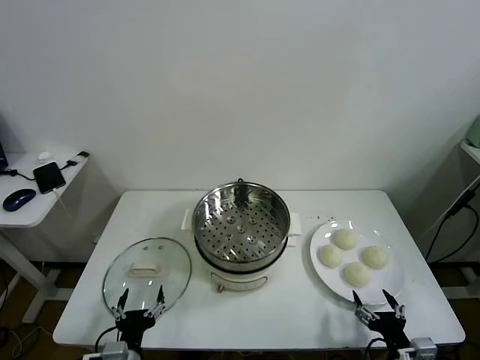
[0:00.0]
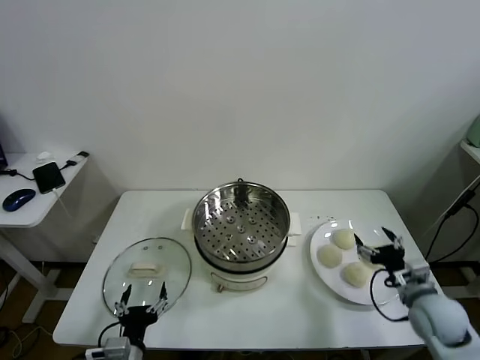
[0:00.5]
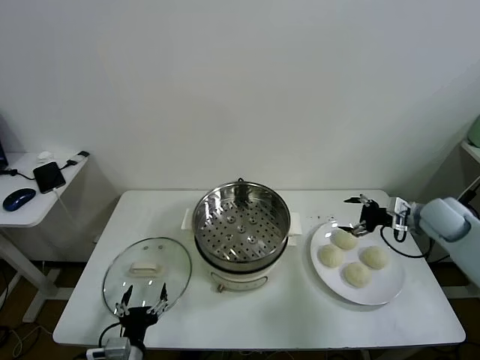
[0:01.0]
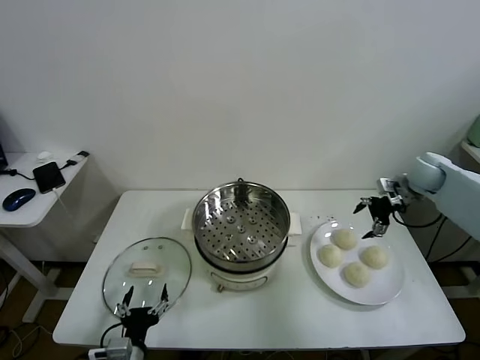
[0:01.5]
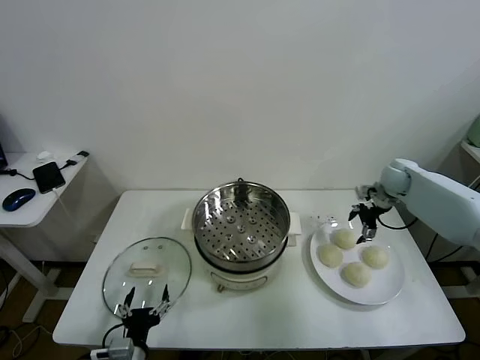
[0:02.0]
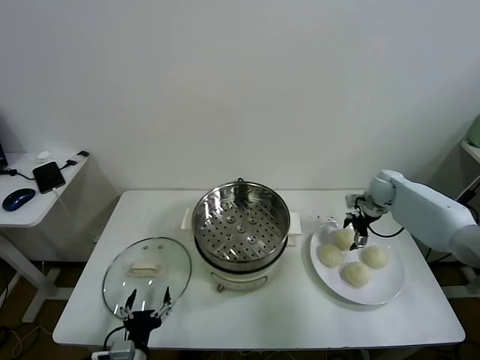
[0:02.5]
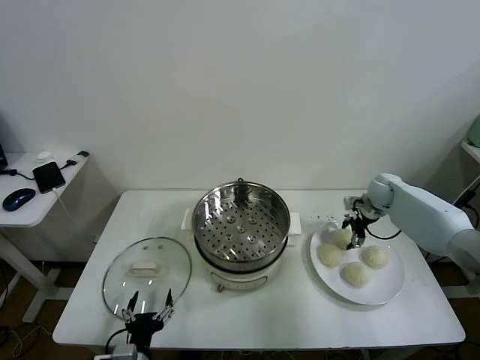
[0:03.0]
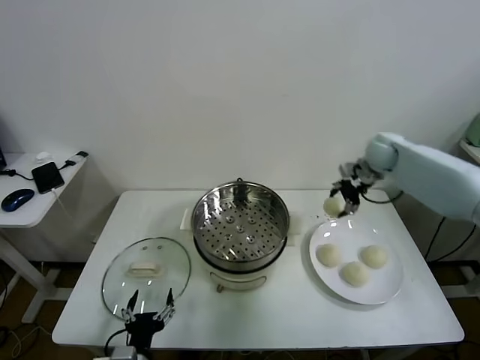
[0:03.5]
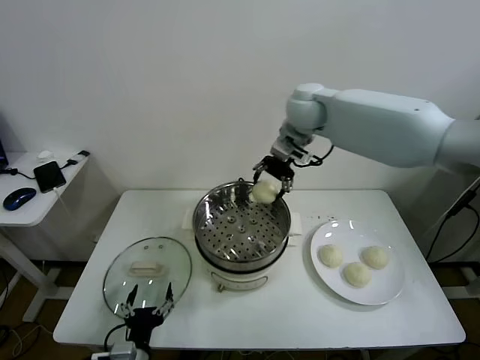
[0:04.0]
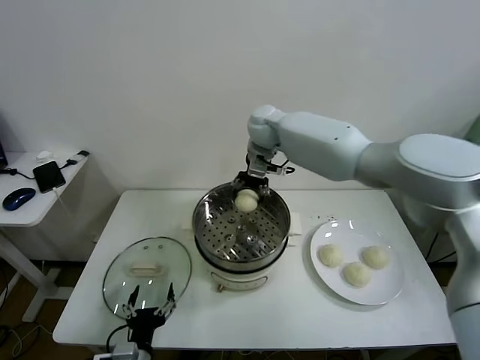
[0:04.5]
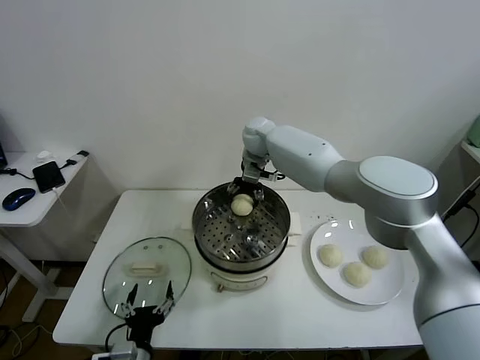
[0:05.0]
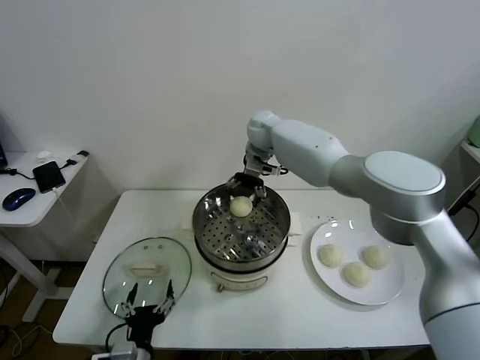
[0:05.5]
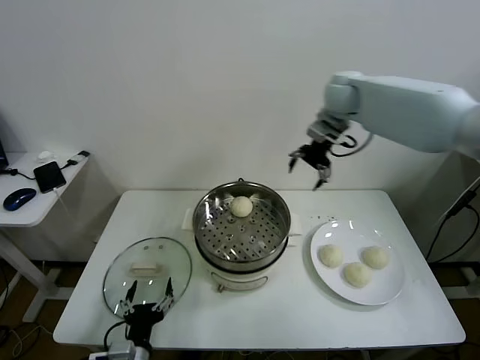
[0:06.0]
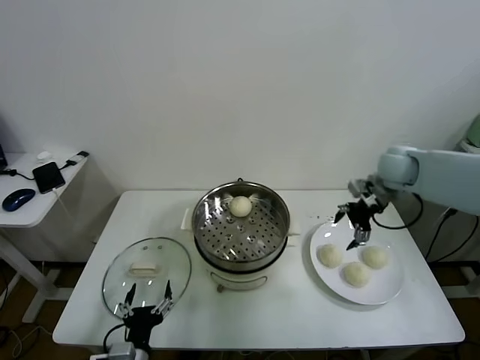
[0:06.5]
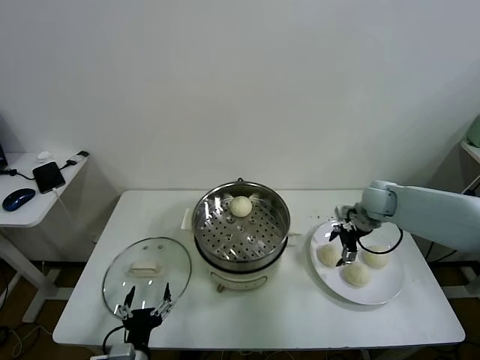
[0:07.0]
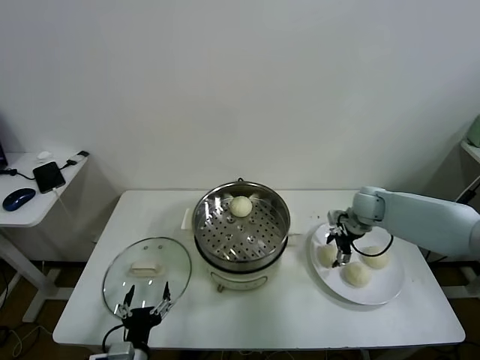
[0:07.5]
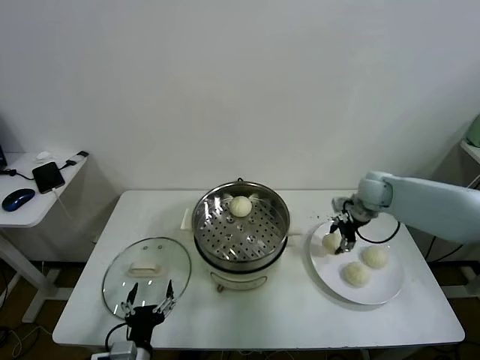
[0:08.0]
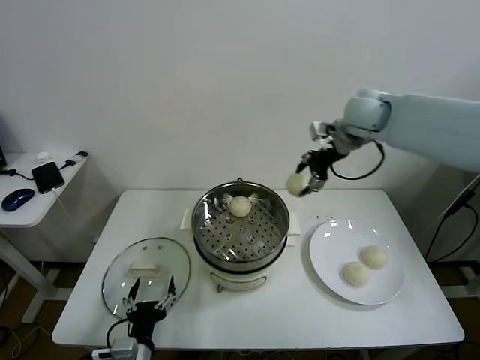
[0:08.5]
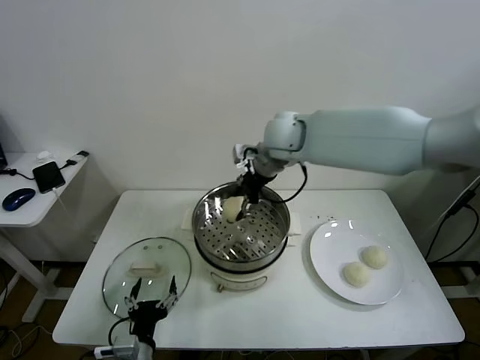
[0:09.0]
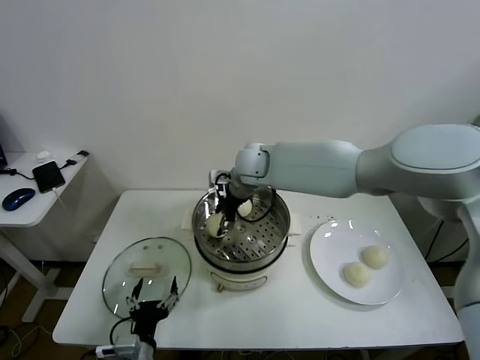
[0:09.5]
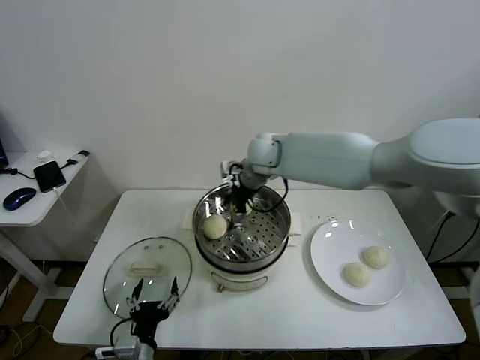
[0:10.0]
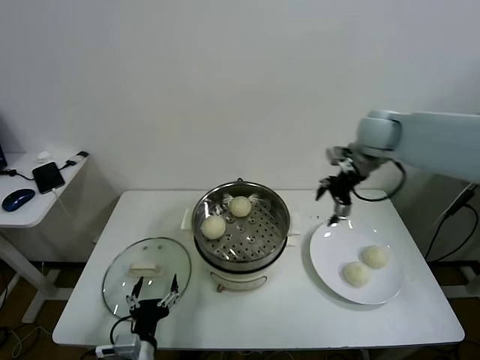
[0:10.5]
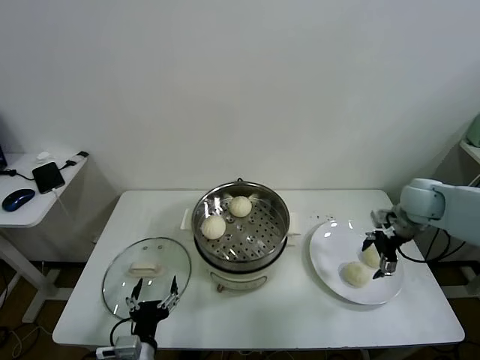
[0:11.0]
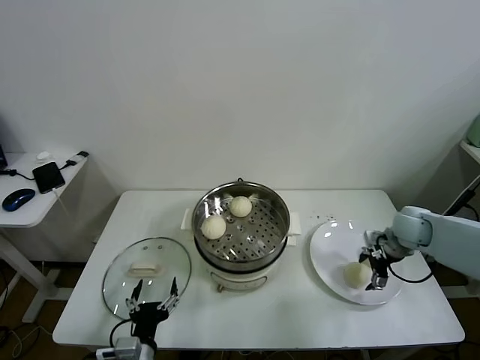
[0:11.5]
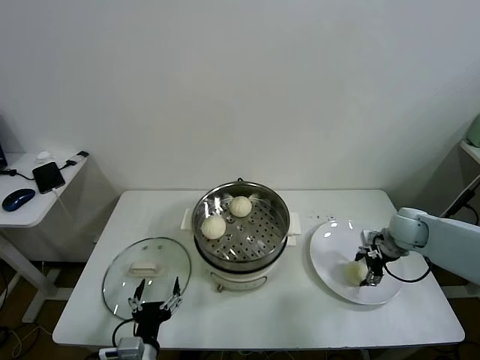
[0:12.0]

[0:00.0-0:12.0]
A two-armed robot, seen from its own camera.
Task of the whole recording: take steamed baozi put them in steamer.
Step, 0:00.0 to 0:02.5: Grasp the baozi in the plate with right gripper.
Step, 0:03.0 to 0:05.0: Place the baozi on the steamer with right gripper.
Step, 0:05.5 to 0:07.5: Grasp the baozi in the plate with right gripper.
Step, 0:08.0 to 0:09.5: Place the baozi on the steamer with right gripper.
Step, 0:10.0 to 0:12.0: Grasp the baozi in the plate with right gripper.
0:02.0 to 0:04.0: The right gripper heads to the left and upward, covering about 35 cm, and closes.
0:04.0 to 0:06.0: The right gripper heads to the right, covering about 15 cm, and opens up.
0:06.0 to 0:08.0: The right gripper heads downward, covering roughly 20 cm, and closes.
0:08.0 to 0:10.0: The right gripper moves to the left, some 25 cm, and opens its fingers.
0:10.0 to 0:12.0: The right gripper is displaced to the right and downward by about 40 cm, and closes its fingers.

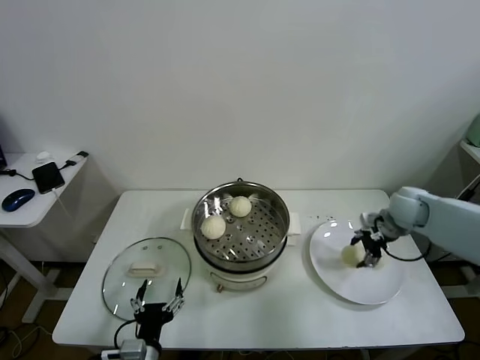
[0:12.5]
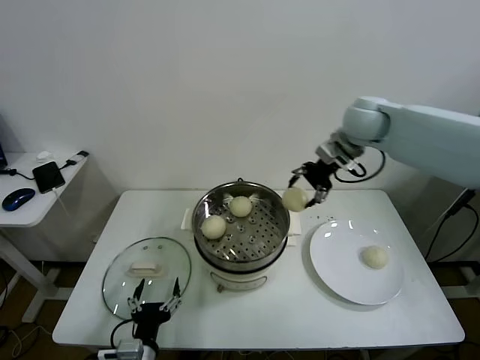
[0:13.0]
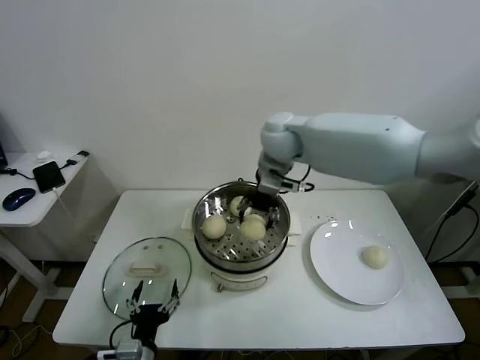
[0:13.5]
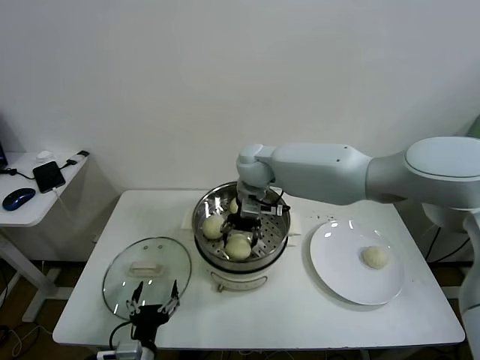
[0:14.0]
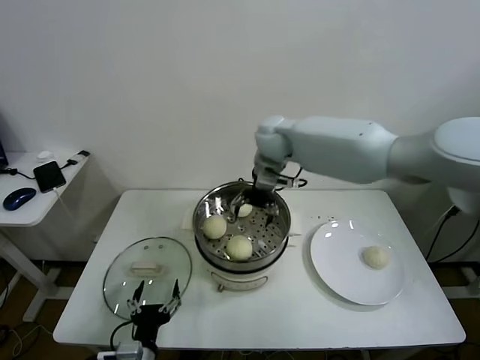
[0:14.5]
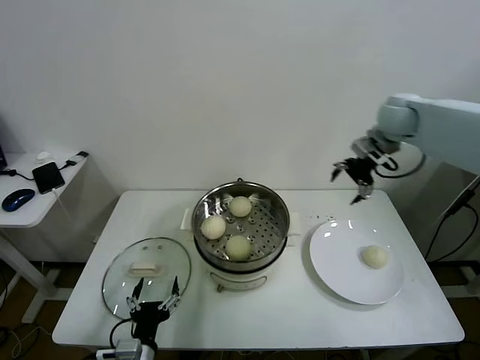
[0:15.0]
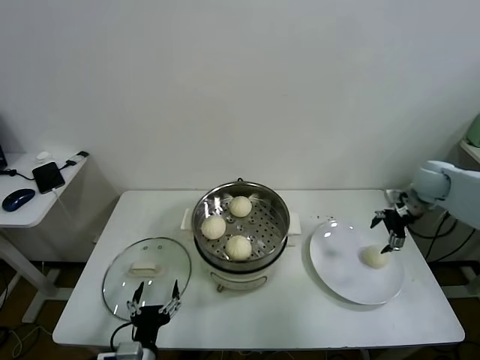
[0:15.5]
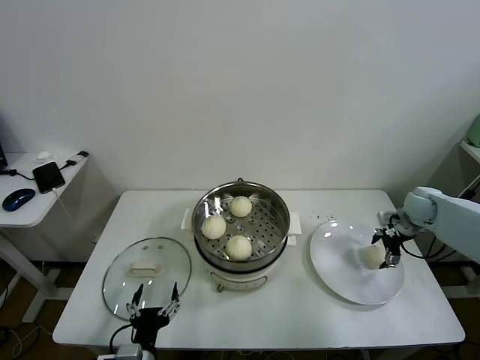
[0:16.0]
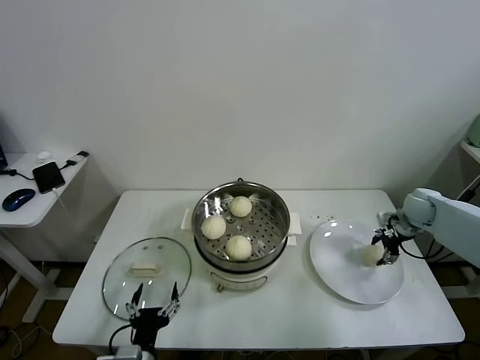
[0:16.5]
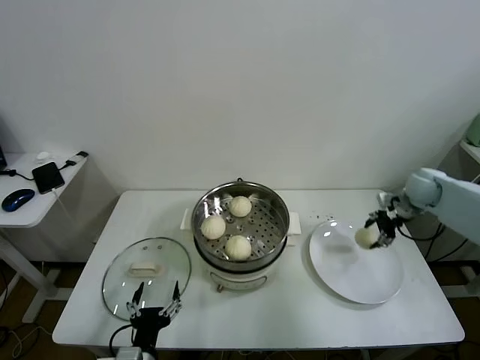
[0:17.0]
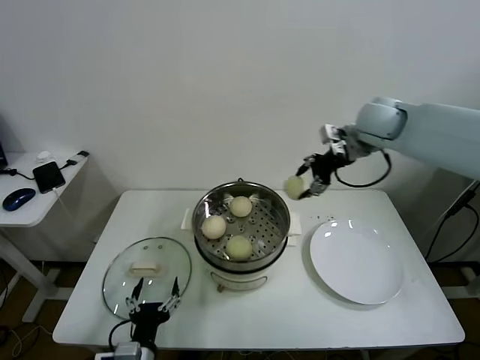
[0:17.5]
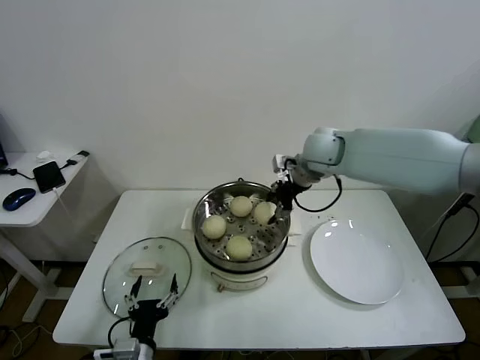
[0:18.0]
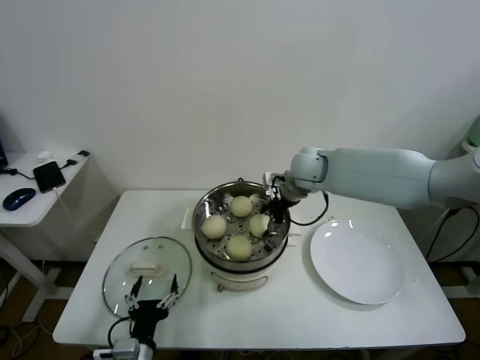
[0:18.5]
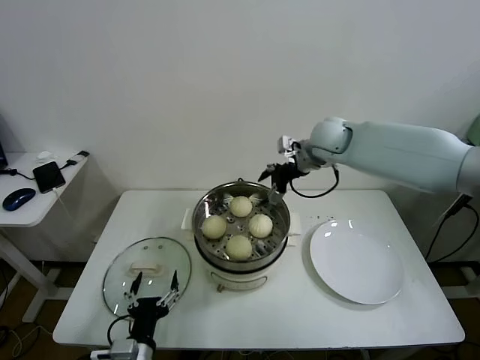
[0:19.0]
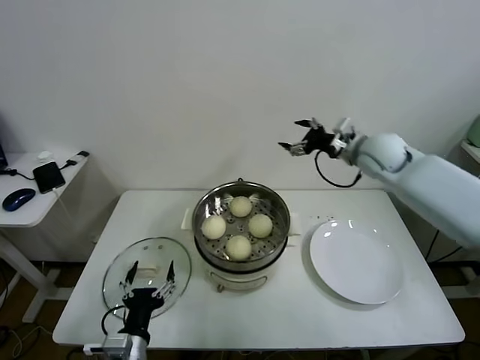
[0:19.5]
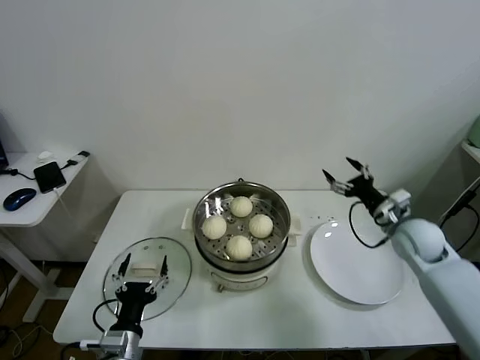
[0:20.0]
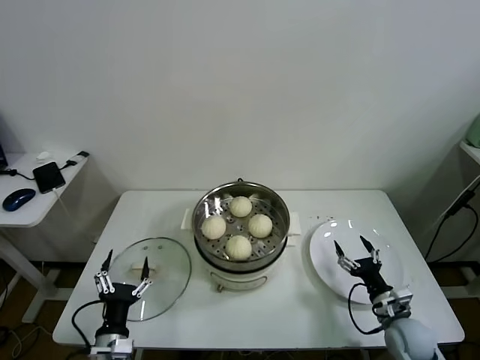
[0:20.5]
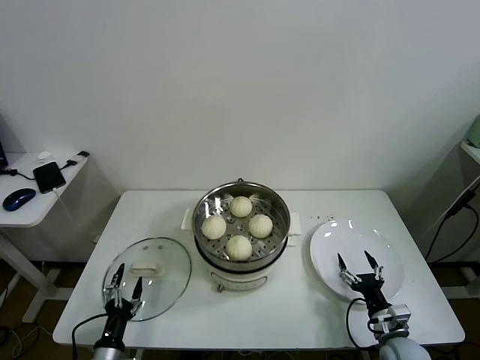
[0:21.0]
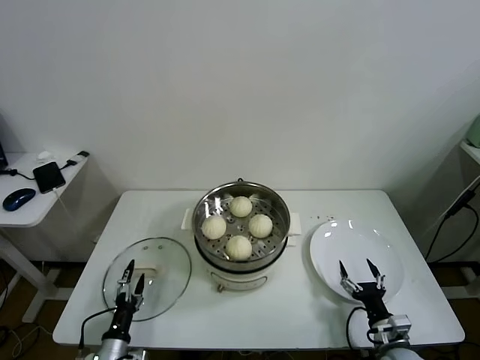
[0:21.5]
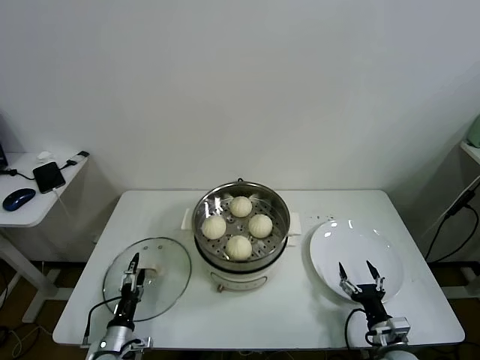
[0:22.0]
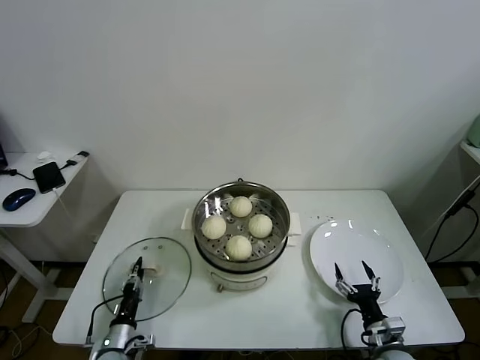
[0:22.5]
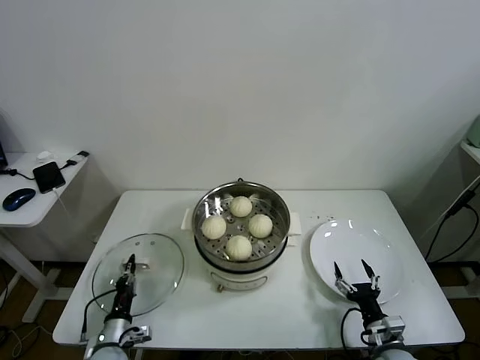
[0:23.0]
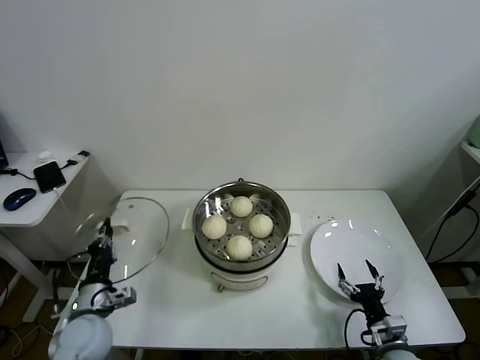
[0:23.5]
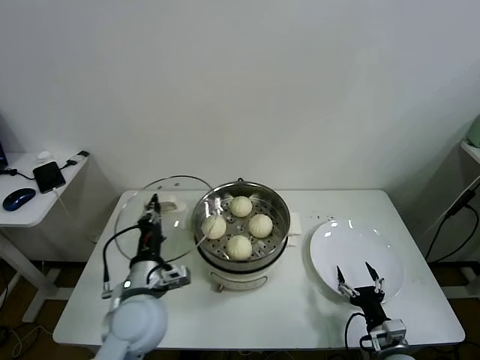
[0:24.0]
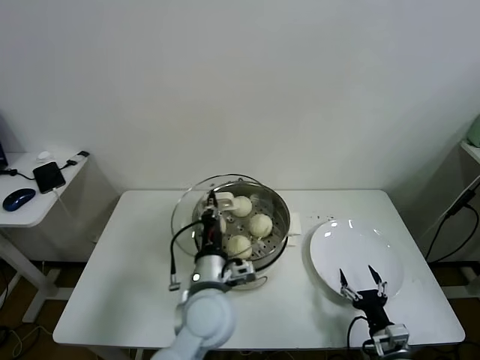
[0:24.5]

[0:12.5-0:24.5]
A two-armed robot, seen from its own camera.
Task of the whole recording: take steamed baozi put them in steamer.
Step, 0:12.5 to 0:14.0: Place the baozi on the steamer with right gripper.
Step, 0:14.5 to 0:16.0: Grasp the baozi in the plate with right gripper.
Step, 0:17.0 to 0:18.5: Place the baozi on the steamer with right gripper.
Step, 0:19.0 to 0:22.5: Grasp the pot lid with left gripper.
0:12.5 to 0:14.5: The right gripper is displaced to the left and upward by about 35 cm, and opens up.
0:14.5 to 0:16.5: The right gripper shifts roughly 40 cm to the right and downward, and closes its fingers.
0:16.5 to 0:18.5: The right gripper travels to the left by approximately 30 cm, and opens.
0:18.5 to 0:20.5: The left gripper moves to the left, some 5 cm. Meanwhile the right gripper heads downward, backward and to the right, covering about 50 cm, and opens its fingers.
0:20.5 to 0:22.5: The left gripper moves downward and to the left, about 15 cm, and closes its fingers, while the right gripper heads backward, covering approximately 5 cm.
0:22.5 to 0:24.5: The left gripper moves upward and to the right, some 35 cm, and closes its fingers.

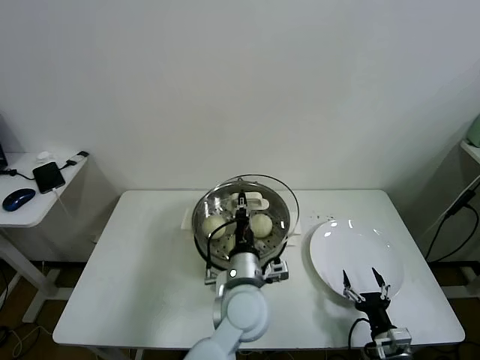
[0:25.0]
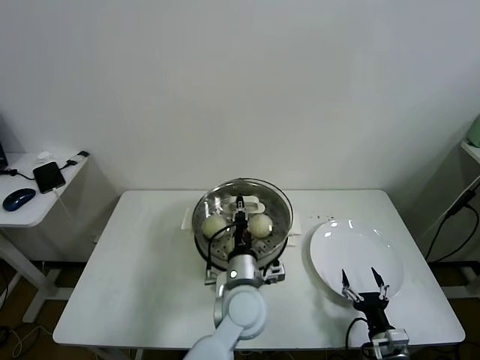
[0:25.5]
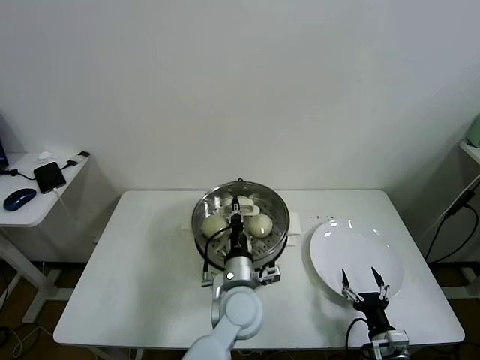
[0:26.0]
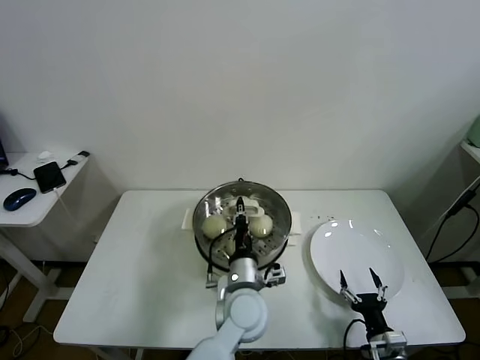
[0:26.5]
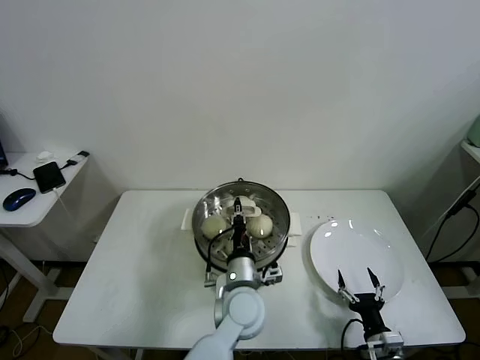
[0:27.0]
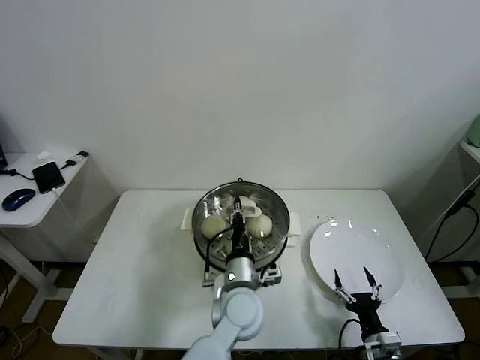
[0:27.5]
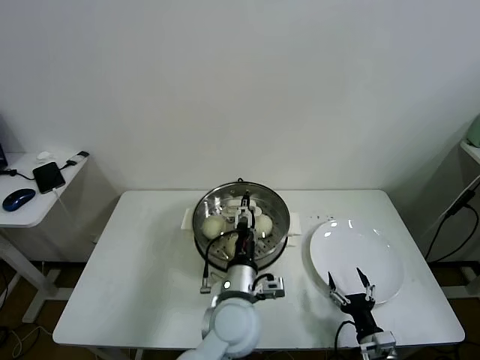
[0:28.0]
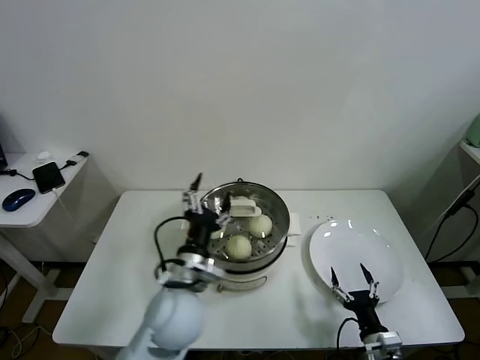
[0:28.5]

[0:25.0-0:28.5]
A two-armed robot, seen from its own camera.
Task of the whole recording: take steamed baozi put them in steamer.
Step, 0:25.0 to 0:27.5: Place the pot lid on the steamer with left gripper.
0:25.0 to 0:27.0: The left gripper changes place by some 5 cm.
0:27.0 to 0:28.5: The left gripper moves to the left and upward, about 10 cm, and opens.
